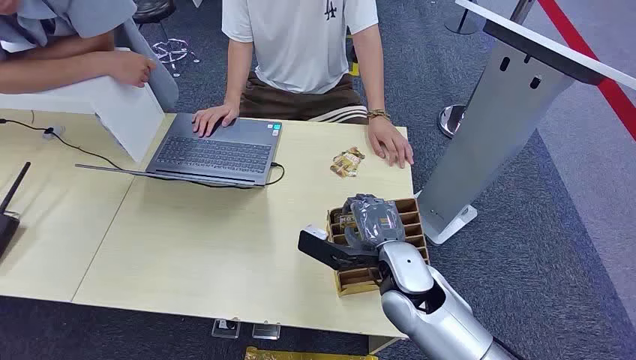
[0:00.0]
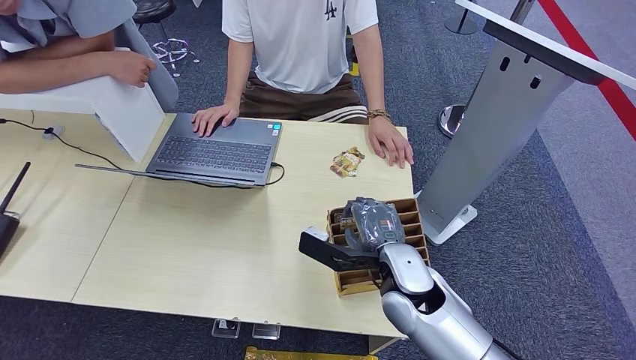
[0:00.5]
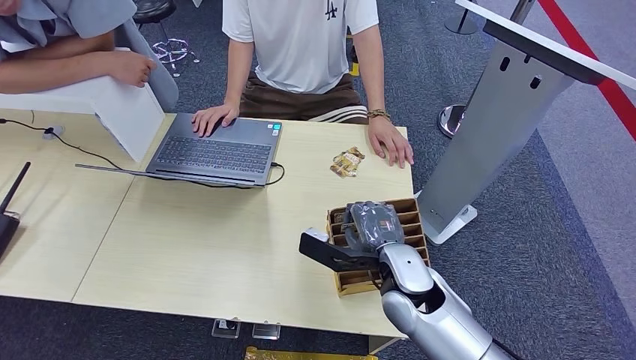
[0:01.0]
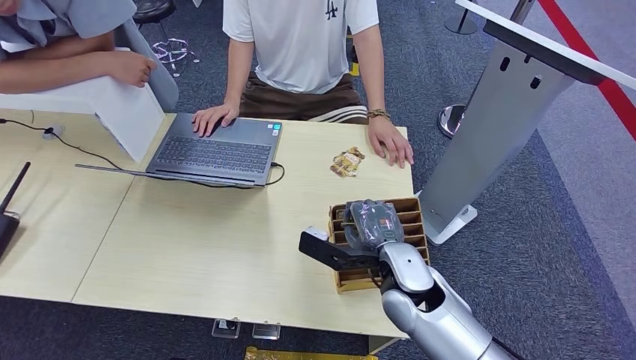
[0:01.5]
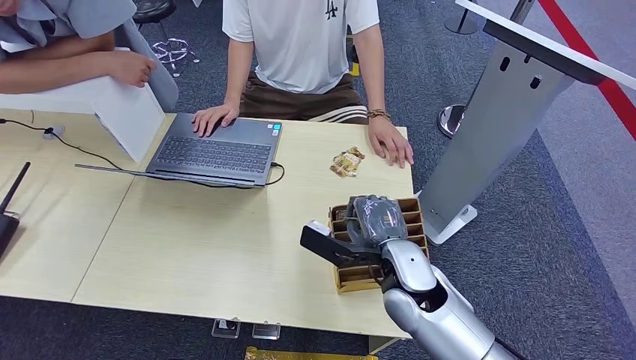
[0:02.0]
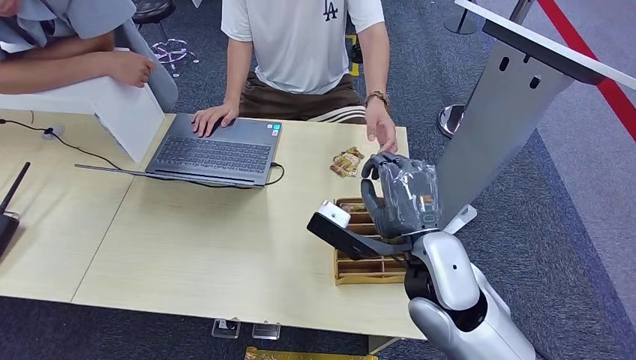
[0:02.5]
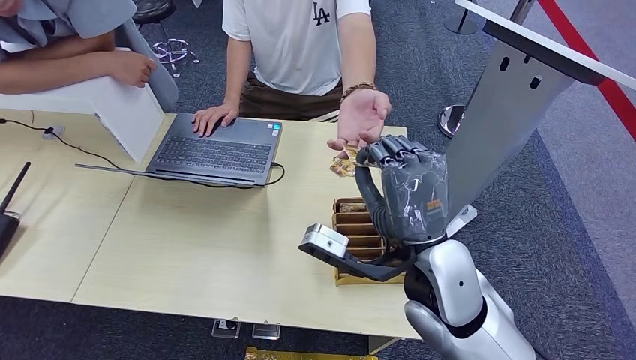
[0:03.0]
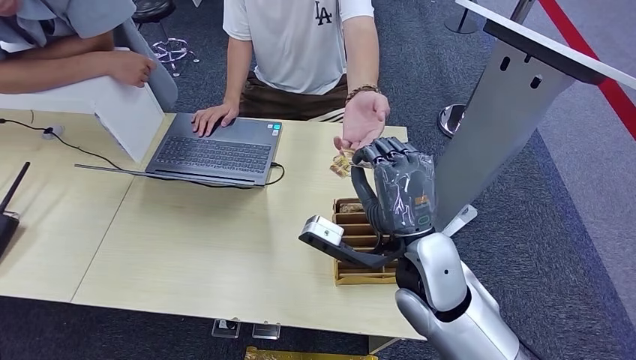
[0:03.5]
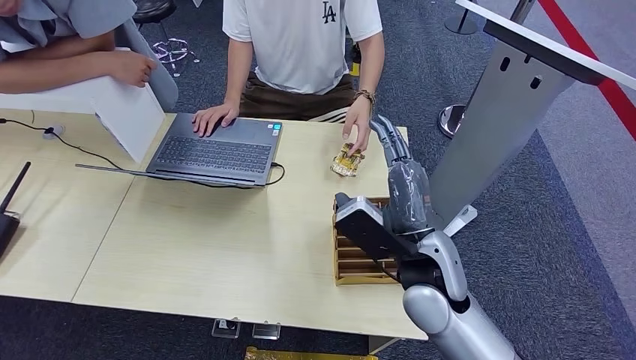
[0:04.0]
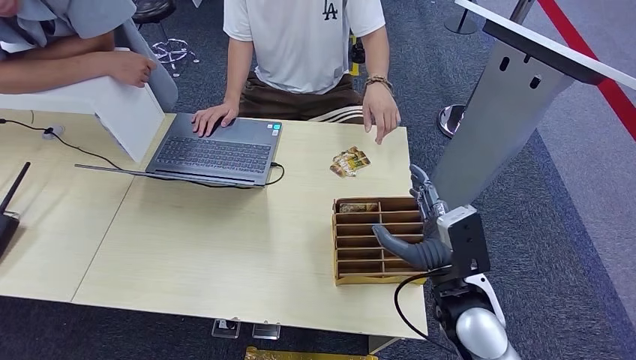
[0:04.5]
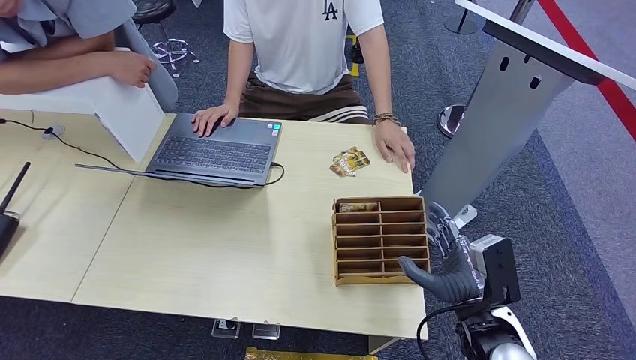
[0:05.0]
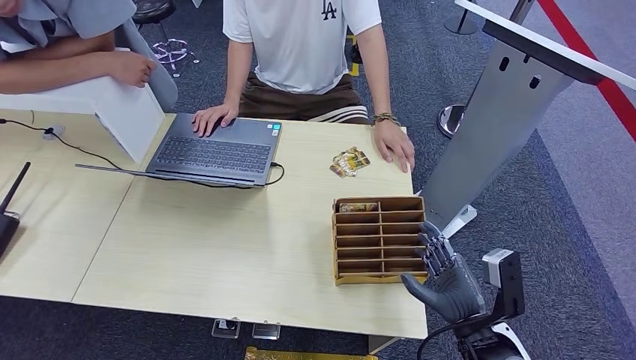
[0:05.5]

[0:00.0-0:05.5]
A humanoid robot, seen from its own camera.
Step, 0:00.0 to 0:02.0: Pick up the room card from the card holder.
Step, 0:03.0 to 0:05.5: Hand the room card to the target.
0:02.0 to 0:03.5: The right hand heads upward, covering some 10 cm.
0:03.5 to 0:05.5: The right hand shifts approximately 20 cm to the right, downward and backward.
